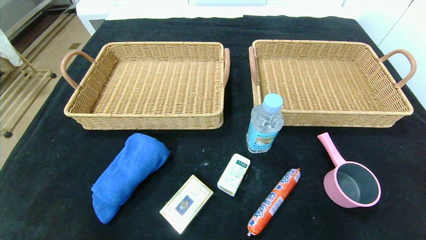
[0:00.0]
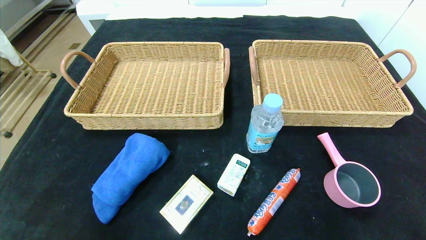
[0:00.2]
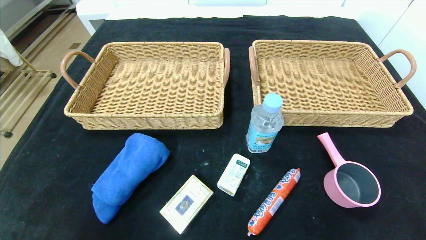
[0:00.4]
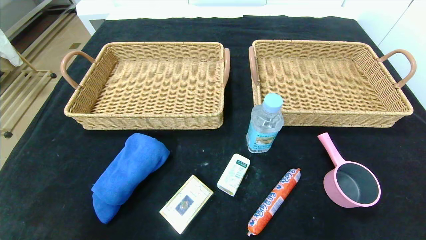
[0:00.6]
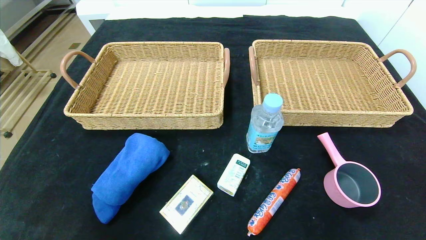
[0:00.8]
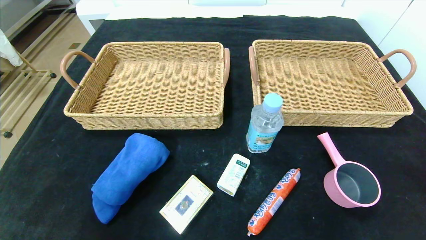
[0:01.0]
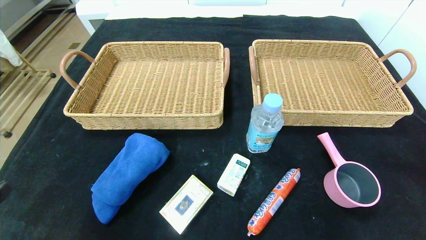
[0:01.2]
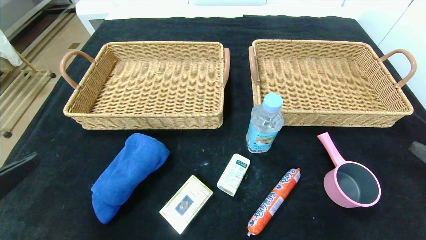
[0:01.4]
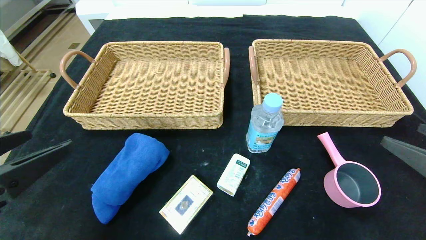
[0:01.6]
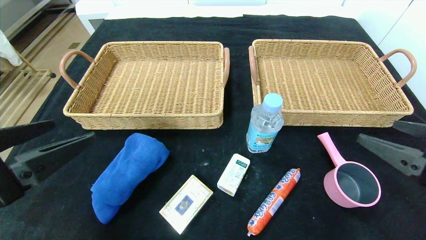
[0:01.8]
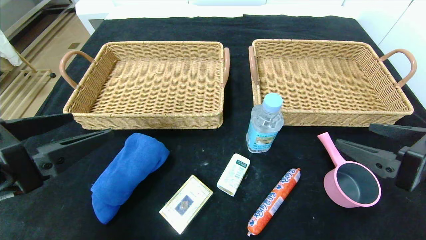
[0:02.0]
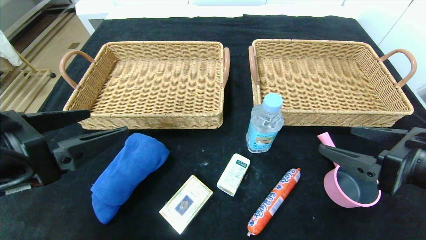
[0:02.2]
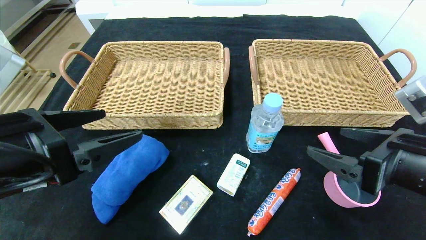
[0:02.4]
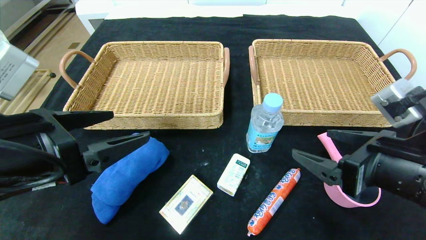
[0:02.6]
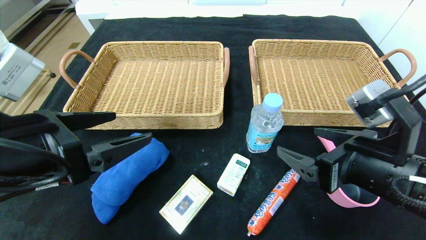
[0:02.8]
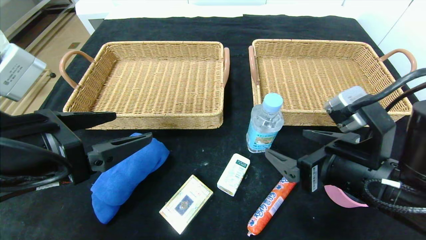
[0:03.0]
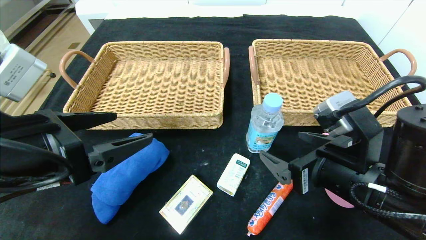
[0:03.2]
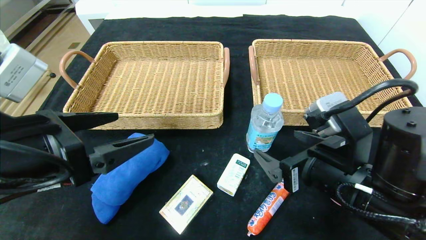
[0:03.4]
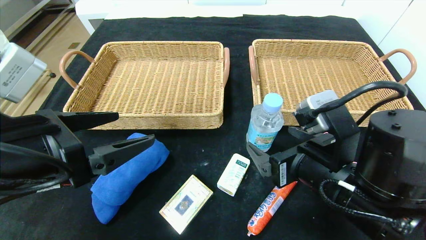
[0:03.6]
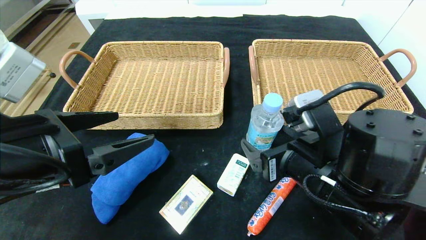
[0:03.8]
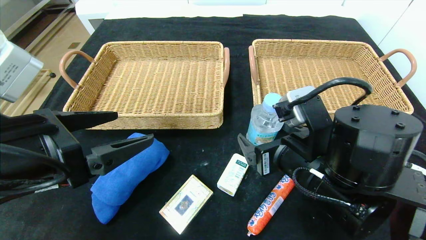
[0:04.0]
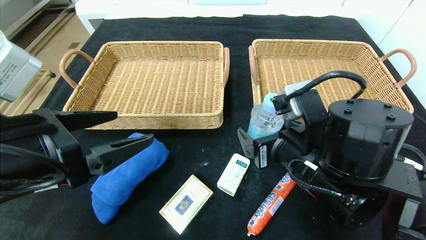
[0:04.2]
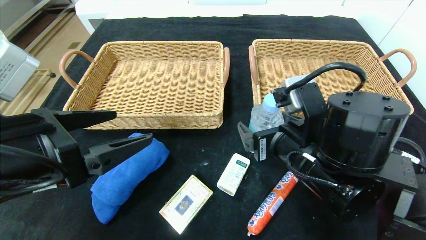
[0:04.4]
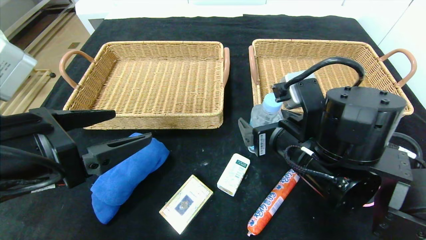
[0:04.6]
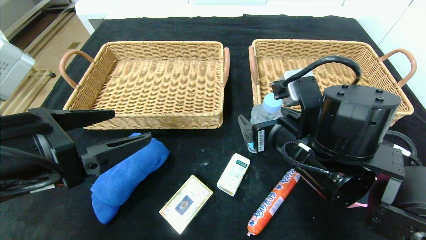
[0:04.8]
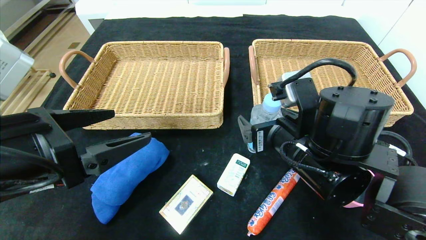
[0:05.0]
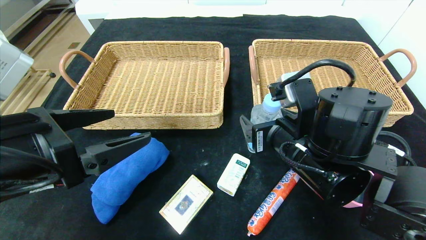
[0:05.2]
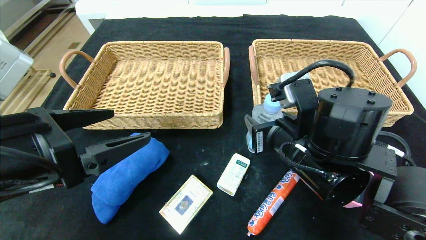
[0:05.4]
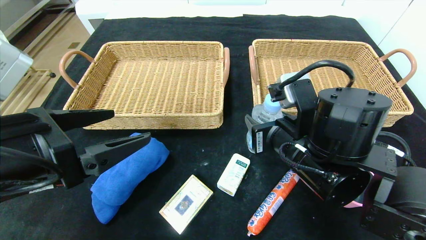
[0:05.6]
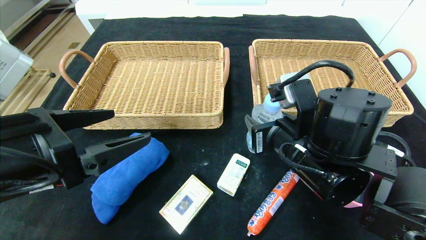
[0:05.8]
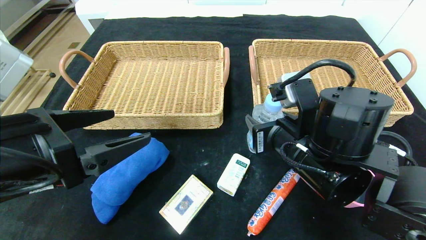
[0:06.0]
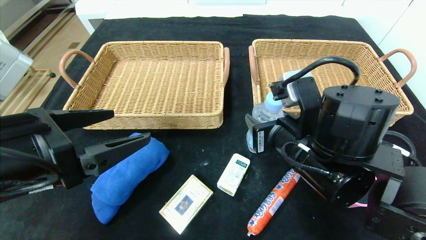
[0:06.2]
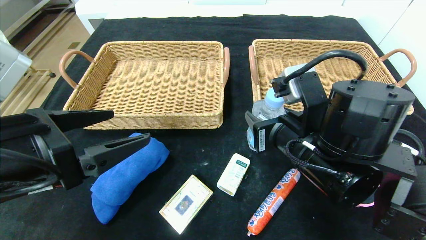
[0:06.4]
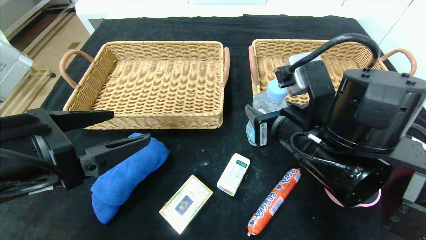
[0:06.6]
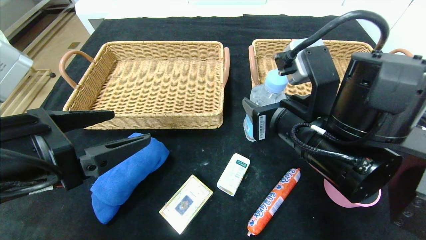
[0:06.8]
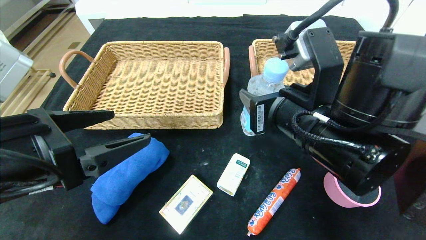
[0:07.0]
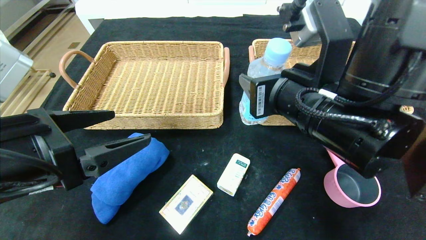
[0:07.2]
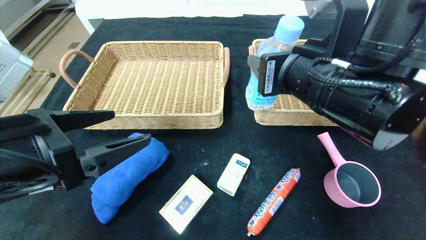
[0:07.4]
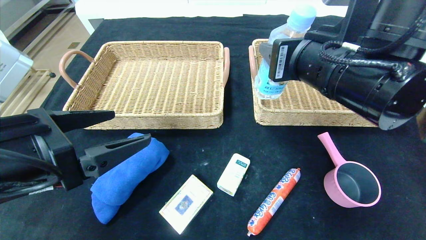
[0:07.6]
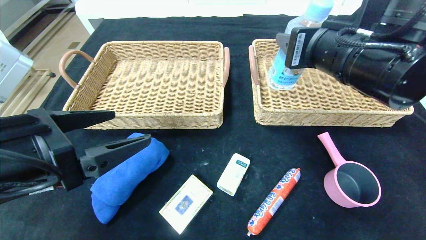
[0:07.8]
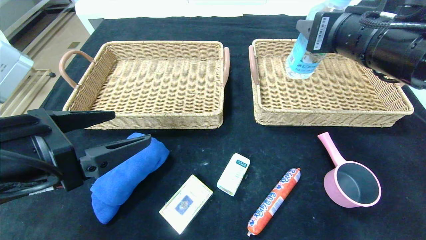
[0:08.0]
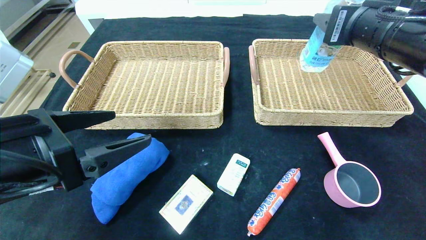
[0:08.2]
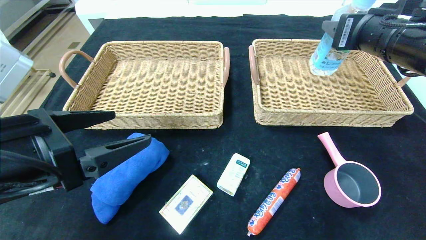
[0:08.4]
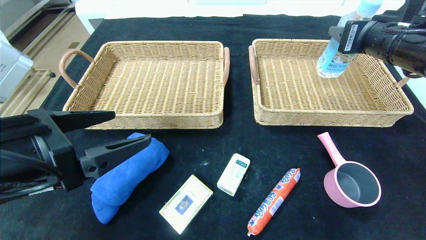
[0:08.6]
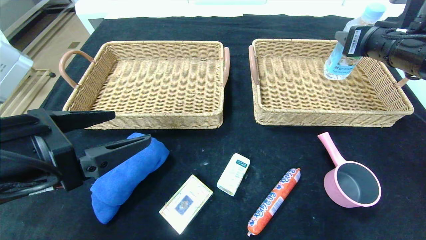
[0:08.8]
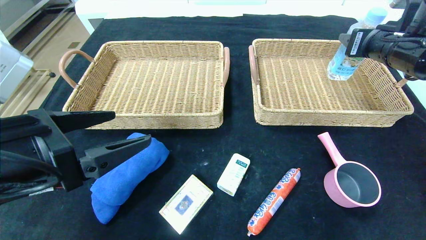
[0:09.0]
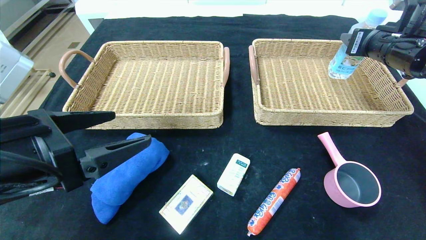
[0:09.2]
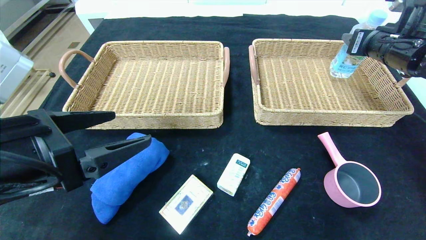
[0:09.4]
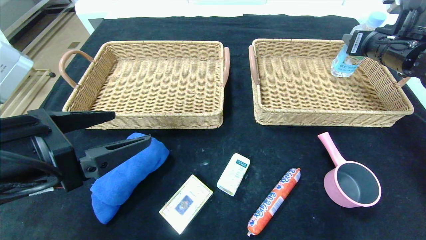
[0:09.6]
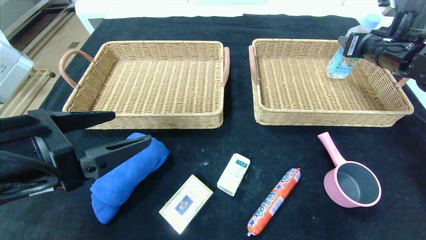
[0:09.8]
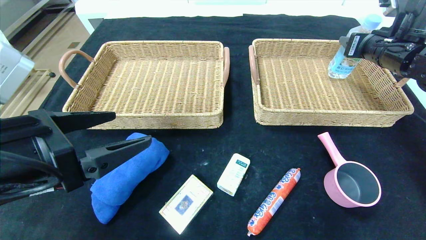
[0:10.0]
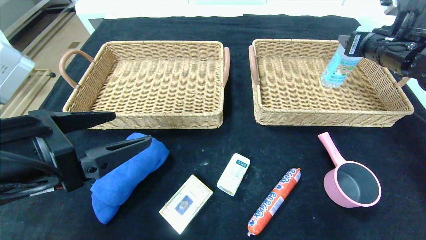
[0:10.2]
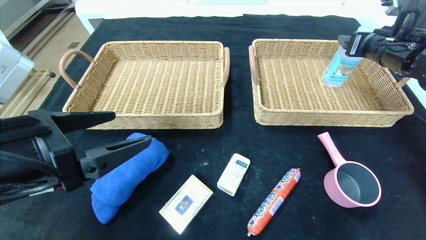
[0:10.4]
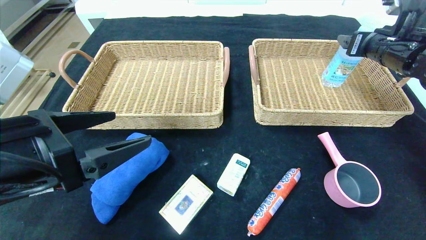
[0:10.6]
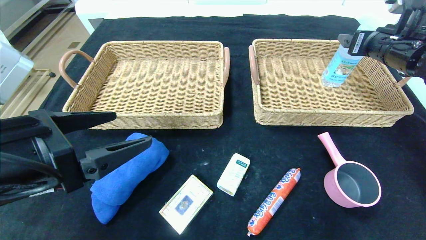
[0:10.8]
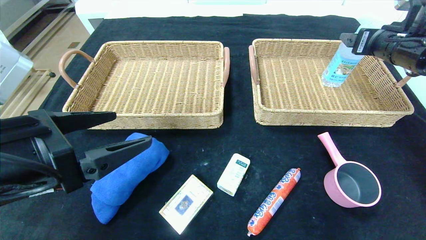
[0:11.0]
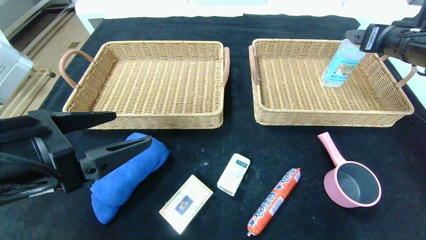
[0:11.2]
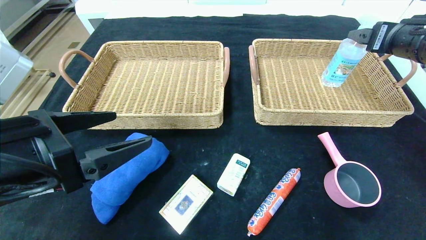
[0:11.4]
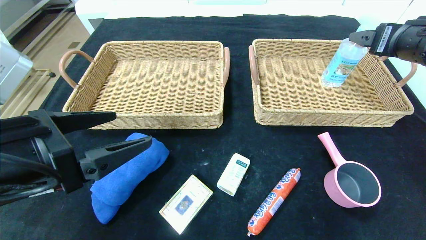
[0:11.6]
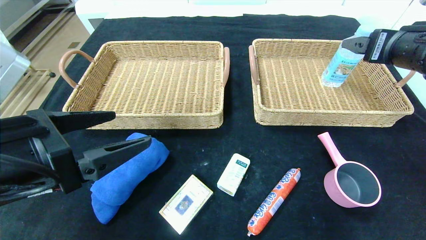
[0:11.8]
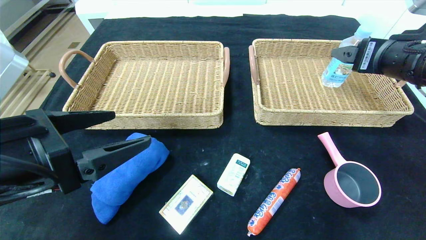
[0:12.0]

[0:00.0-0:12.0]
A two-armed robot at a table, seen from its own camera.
Step, 0:00.0 to 0:10.8: Grasp the soda water and put it in the right basket.
0:00.0 to 0:01.6: The grippers both shift forward by about 10 cm.
0:01.6 to 0:03.0: The left gripper heads forward, covering some 5 cm; the right gripper moves to the left and forward, roughly 15 cm.
0:03.0 to 0:04.4: The right gripper goes roughly 5 cm to the left.
0:04.4 to 0:06.0: The right gripper closes its fingers.
0:06.0 to 0:07.6: The right gripper heads upward, covering roughly 10 cm.
0:07.6 to 0:09.0: The right gripper is displaced to the right and forward by some 20 cm.
0:09.0 to 0:10.4: The right gripper moves about 5 cm.
0:10.4 to 0:12.0: The right gripper shifts roughly 15 cm backward and to the left.

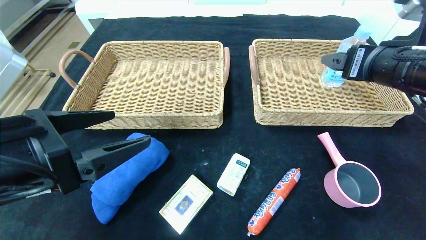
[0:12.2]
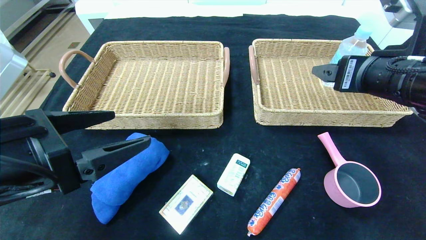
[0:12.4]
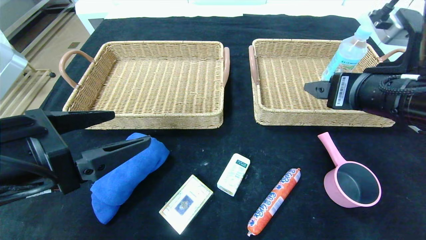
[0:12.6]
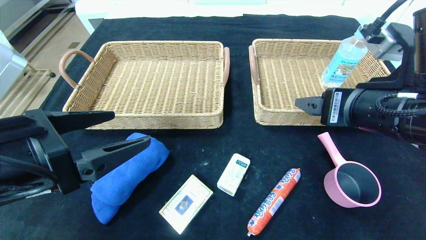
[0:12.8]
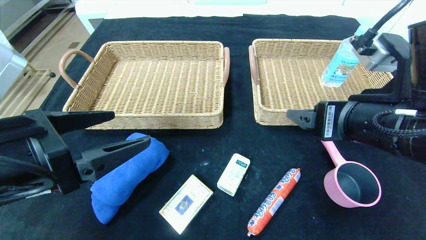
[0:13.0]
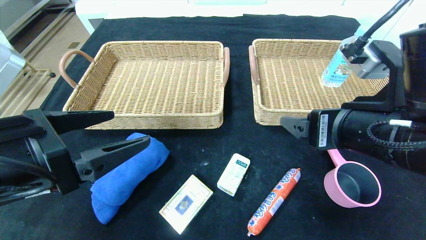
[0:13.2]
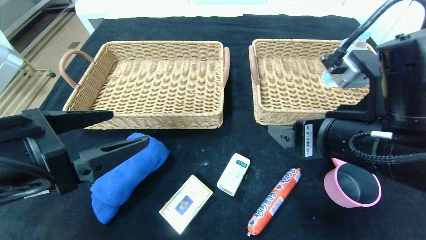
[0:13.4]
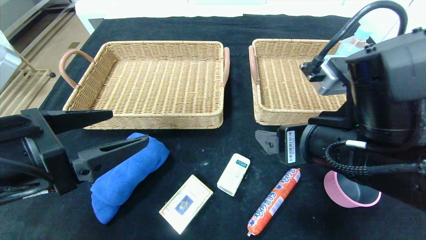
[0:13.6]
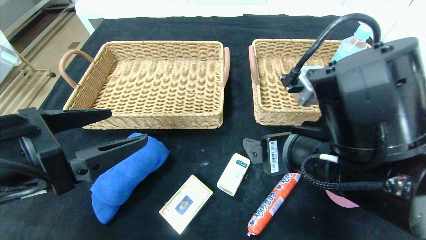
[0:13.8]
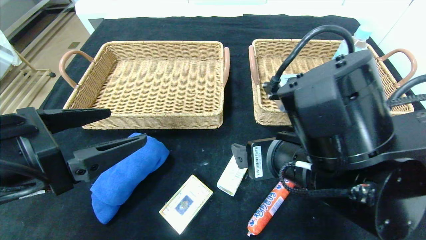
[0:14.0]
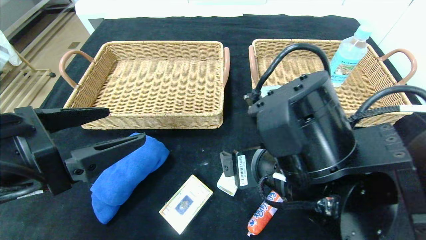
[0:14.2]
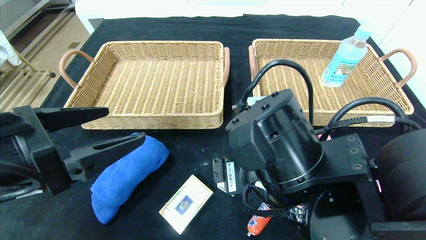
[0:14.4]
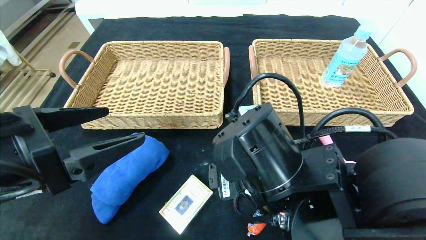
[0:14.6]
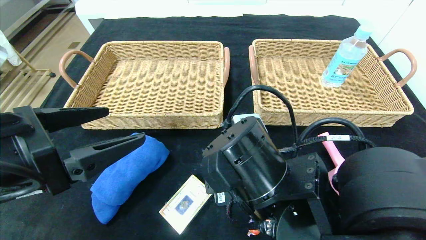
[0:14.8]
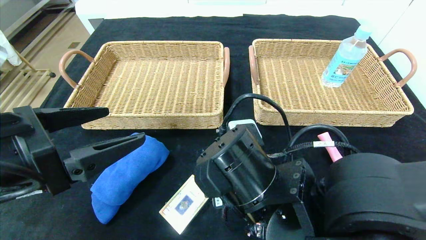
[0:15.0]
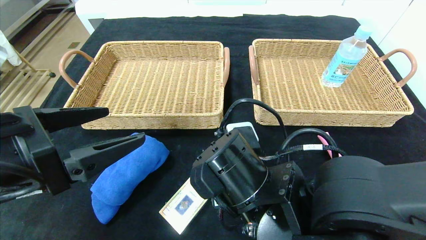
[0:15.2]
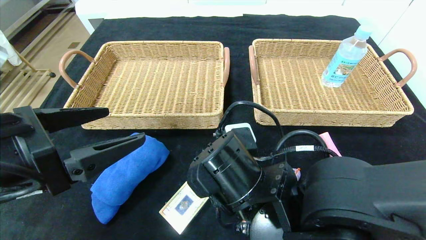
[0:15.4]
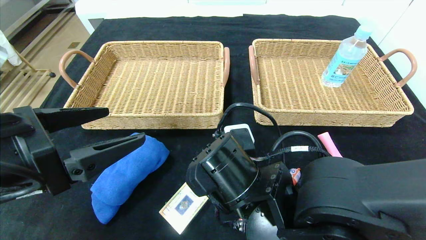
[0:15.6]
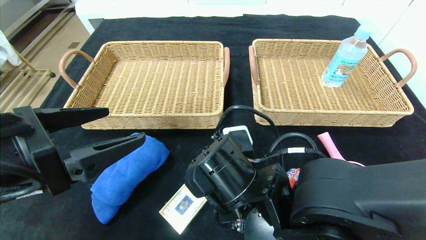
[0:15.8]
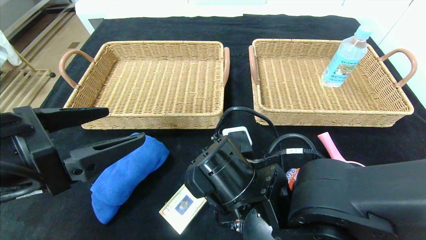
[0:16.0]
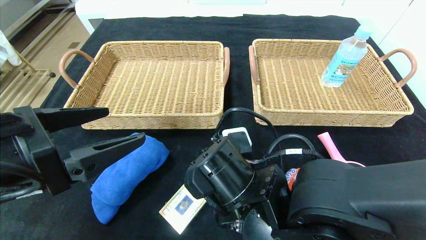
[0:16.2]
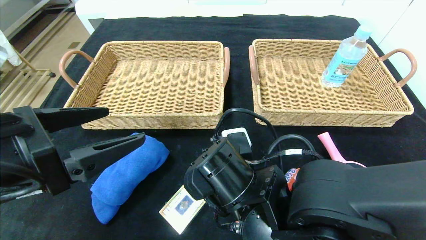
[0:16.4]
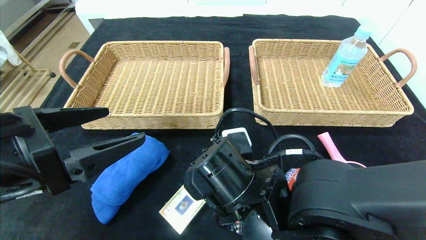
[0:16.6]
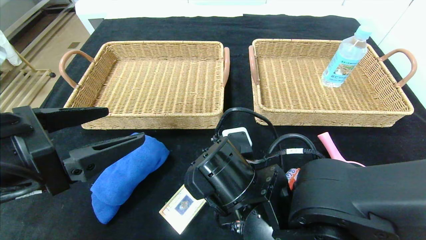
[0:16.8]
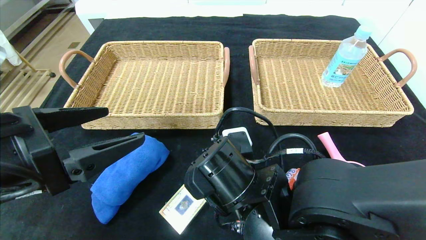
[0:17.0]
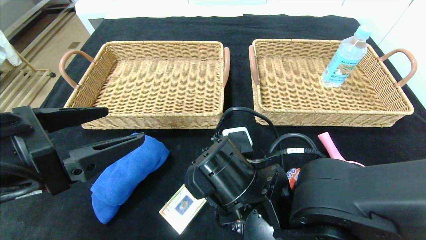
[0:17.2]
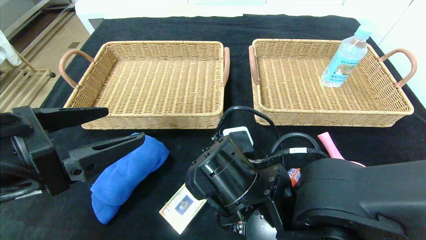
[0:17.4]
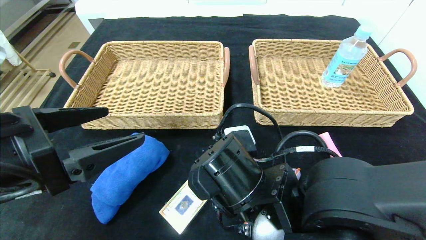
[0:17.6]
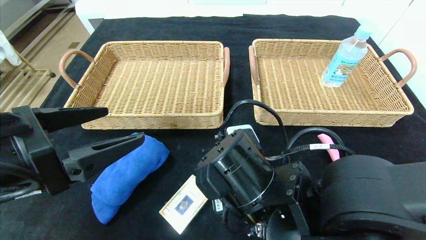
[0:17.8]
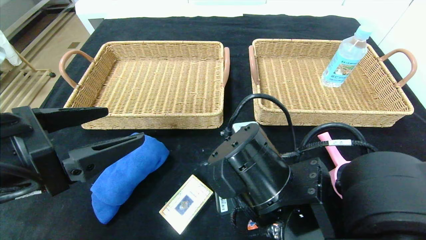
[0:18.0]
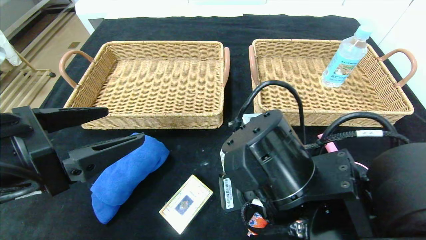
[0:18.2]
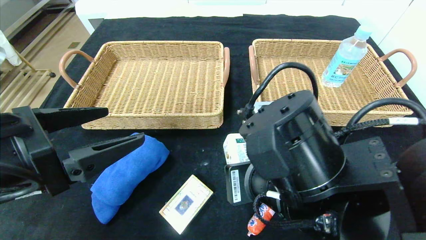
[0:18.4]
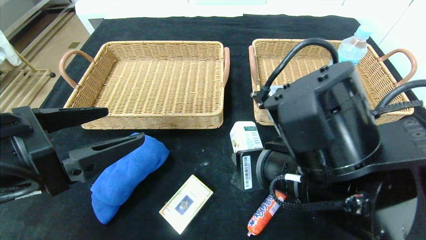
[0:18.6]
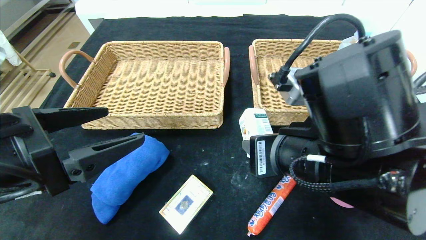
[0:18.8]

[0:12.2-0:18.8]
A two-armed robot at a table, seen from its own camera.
0:12.2 to 0:13.8: The right gripper travels to the left, backward and downward by roughly 15 cm.
0:13.8 to 0:15.4: The right gripper shifts about 10 cm to the left and downward.
0:15.4 to 0:17.2: The right gripper closes.
0:17.2 to 0:18.8: The right gripper travels upward and to the right by some 10 cm.
